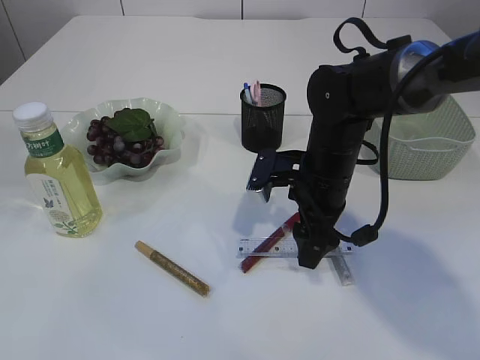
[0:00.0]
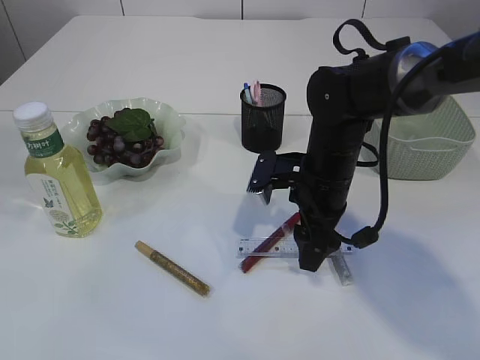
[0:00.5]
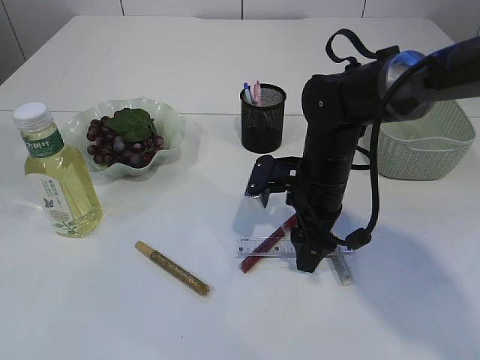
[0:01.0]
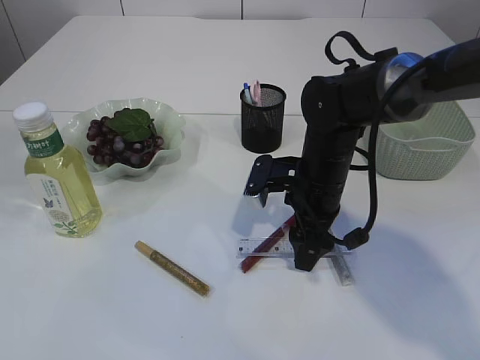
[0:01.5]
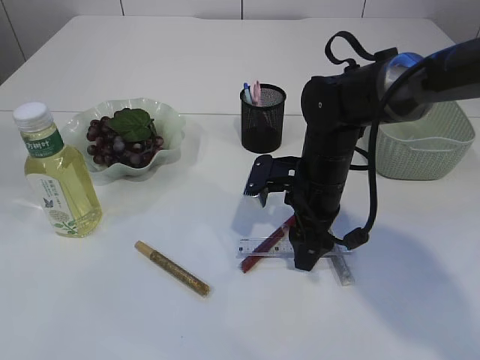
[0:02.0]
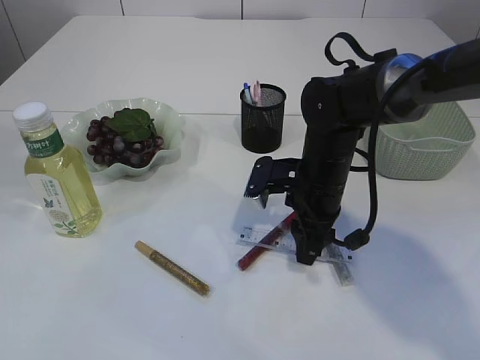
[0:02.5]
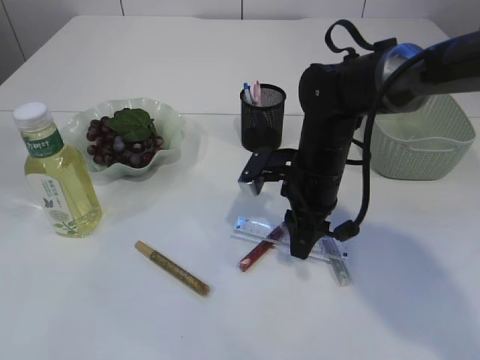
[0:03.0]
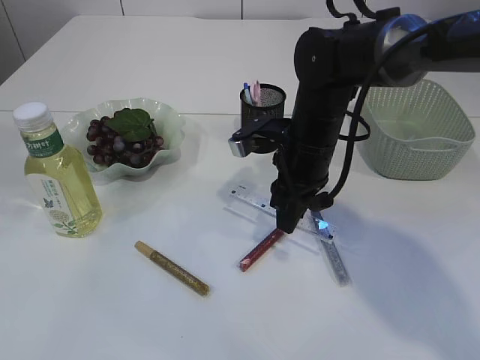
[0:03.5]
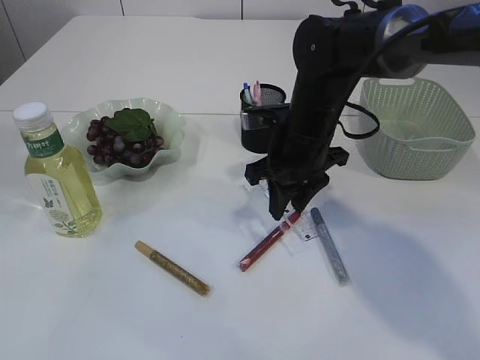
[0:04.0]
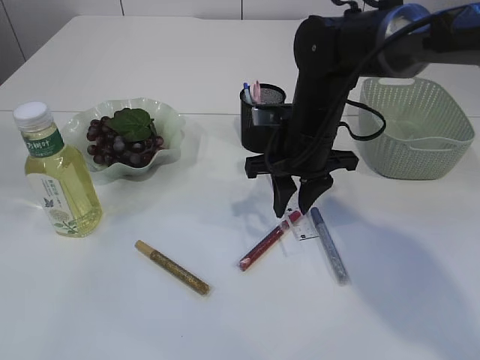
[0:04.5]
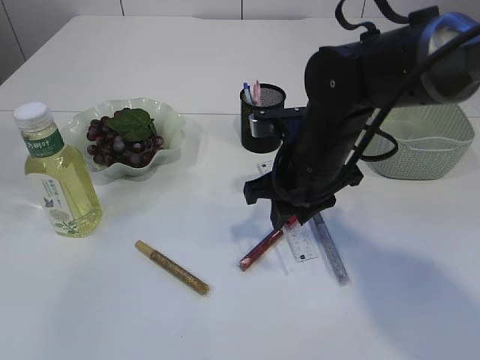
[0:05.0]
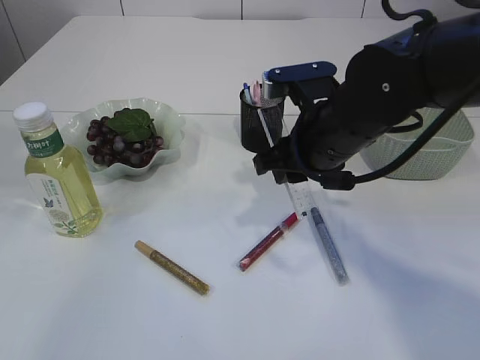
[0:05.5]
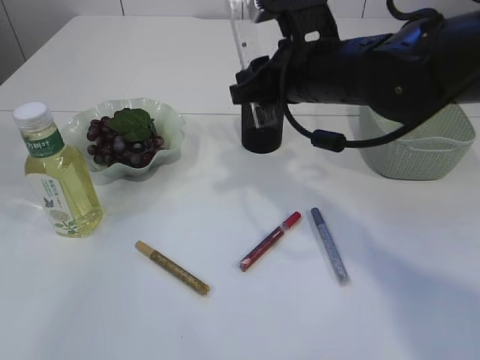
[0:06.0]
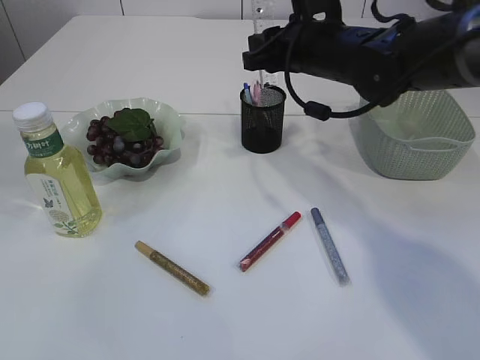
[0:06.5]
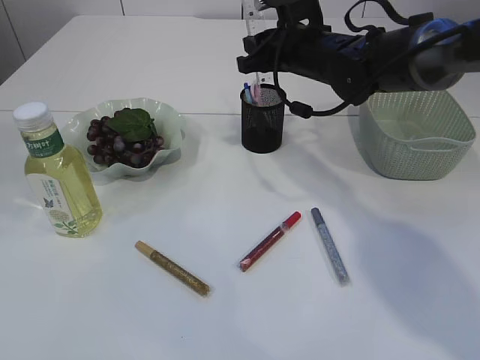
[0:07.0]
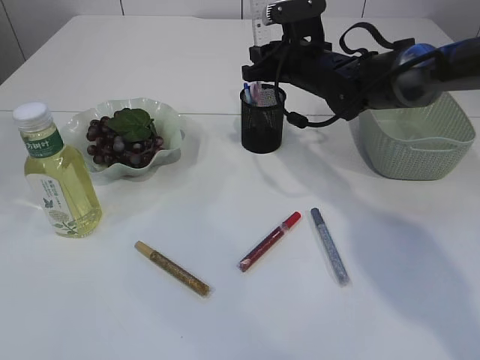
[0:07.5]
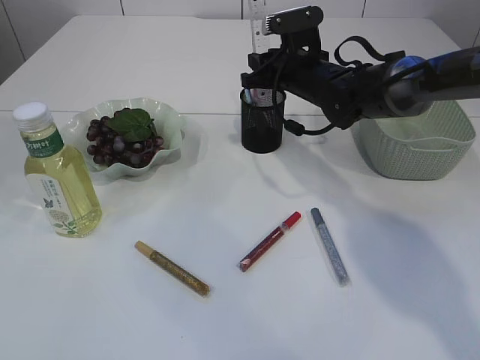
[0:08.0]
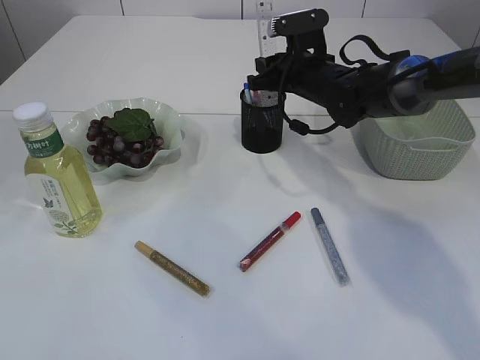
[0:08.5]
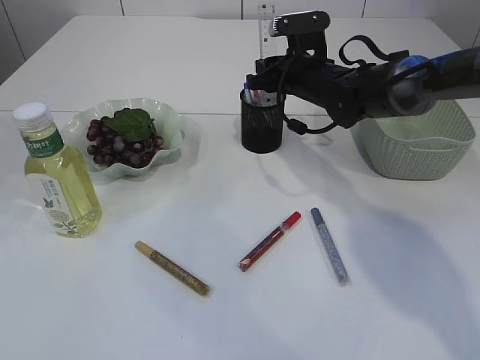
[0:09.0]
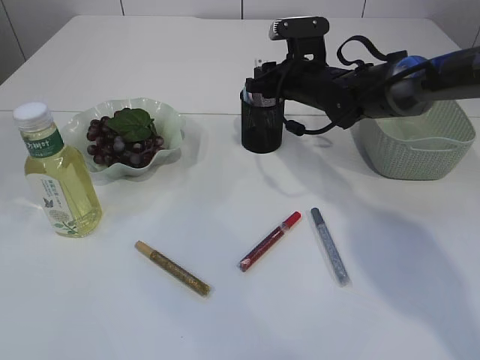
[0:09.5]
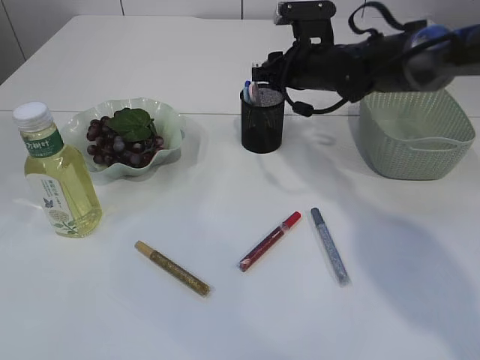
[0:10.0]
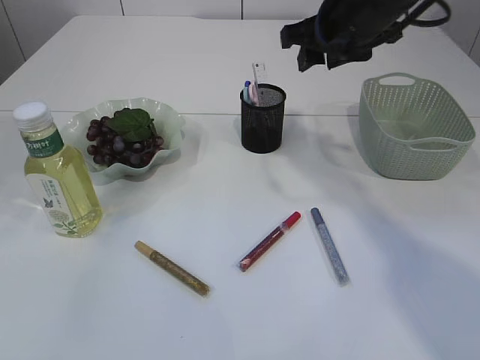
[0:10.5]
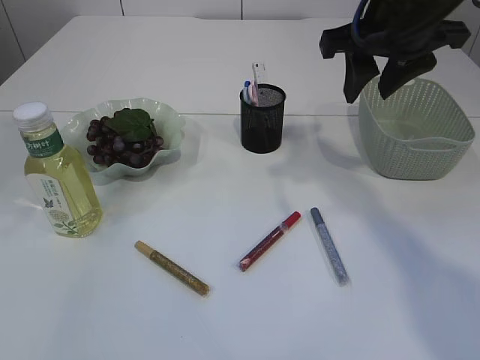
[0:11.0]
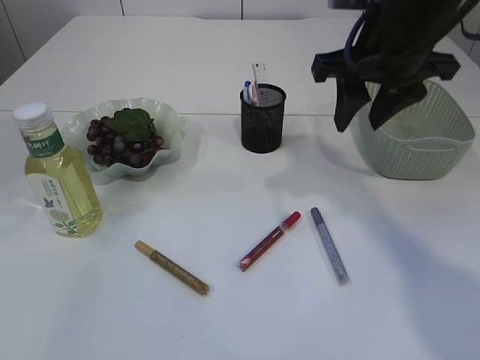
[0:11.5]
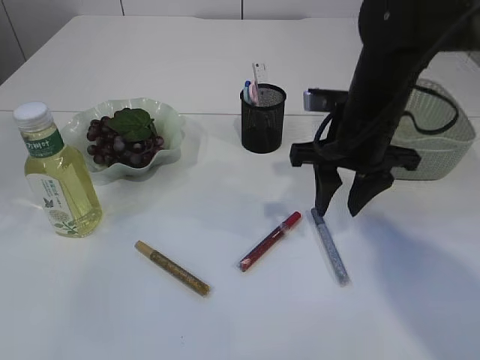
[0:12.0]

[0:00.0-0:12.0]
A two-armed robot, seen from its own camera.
Step, 0:00.0 to 0:03.5: pick up the ruler.
Step, 0:04.0 to 0:10.0: Place the ruler into the pen holder.
0:00.0 to 0:02.0: The grippers make only small movements.
0:02.0 to 0:04.0: The right gripper moves upward, some 5 cm, and closes.
0:04.0 to 0:06.0: The right gripper goes about 10 cm upward.
0:06.0 to 0:08.0: The right gripper heads forward and downward, covering roughly 15 cm.
0:08.0 to 0:10.0: The grippers stay close to where they were, moving slightly.
0:10.0 to 0:12.0: The right gripper goes approximately 15 cm backward.

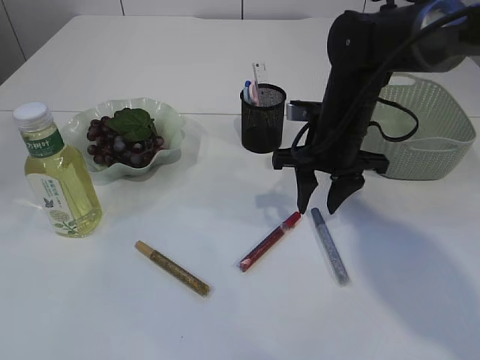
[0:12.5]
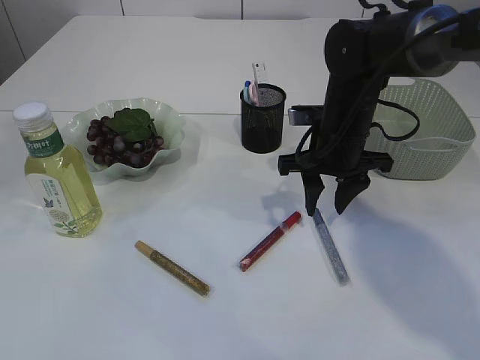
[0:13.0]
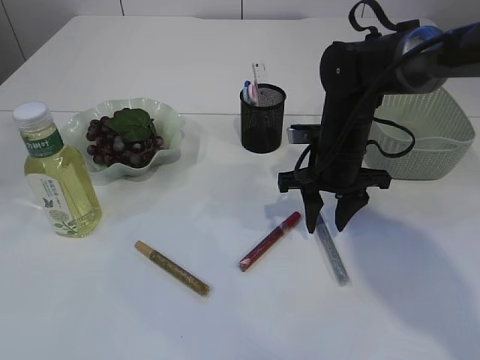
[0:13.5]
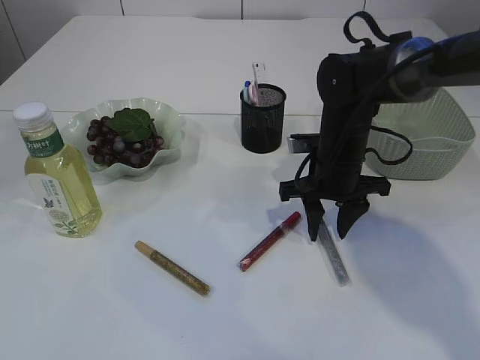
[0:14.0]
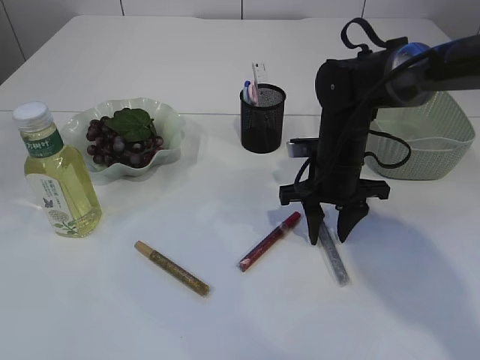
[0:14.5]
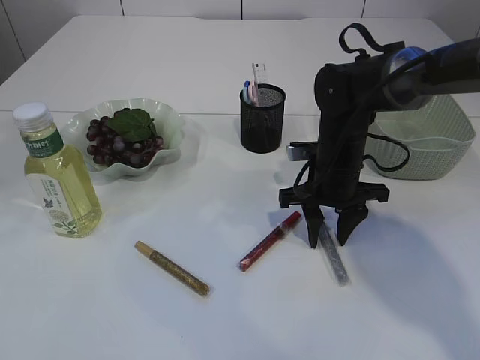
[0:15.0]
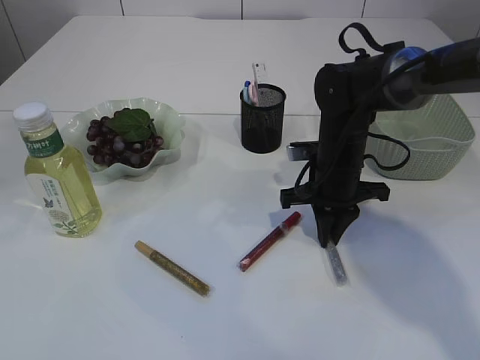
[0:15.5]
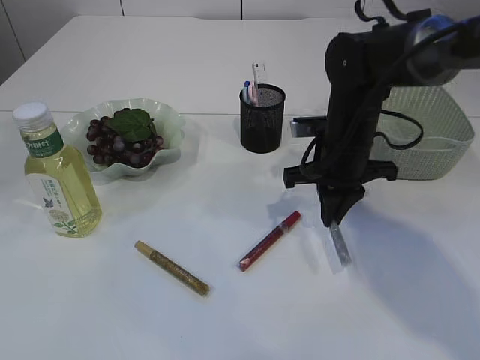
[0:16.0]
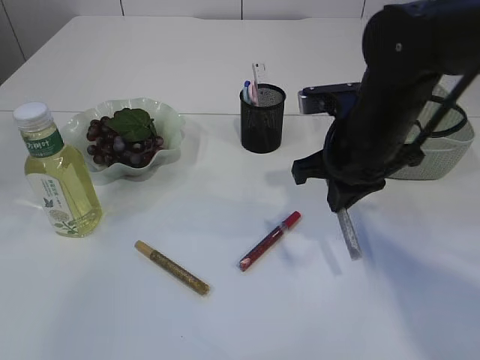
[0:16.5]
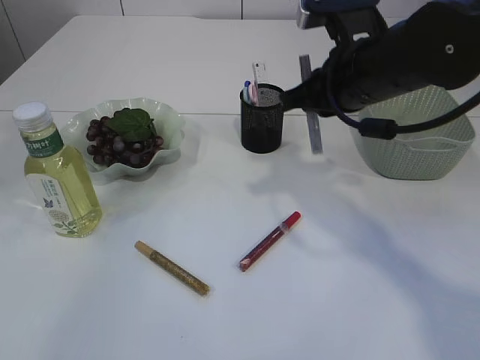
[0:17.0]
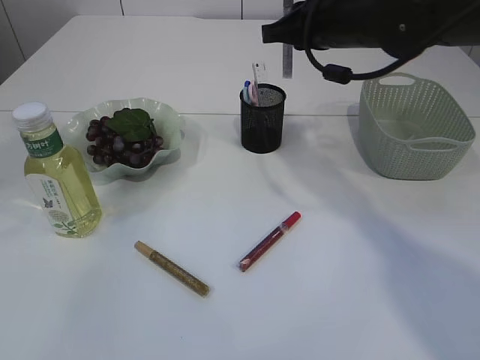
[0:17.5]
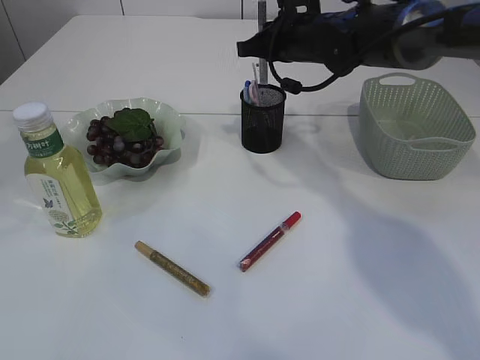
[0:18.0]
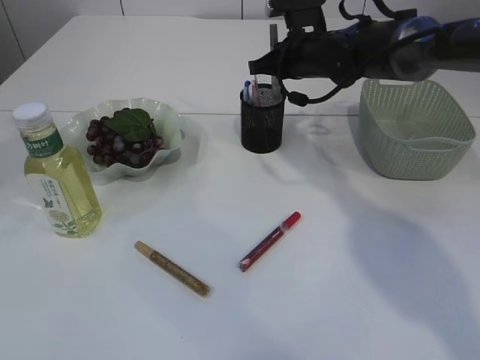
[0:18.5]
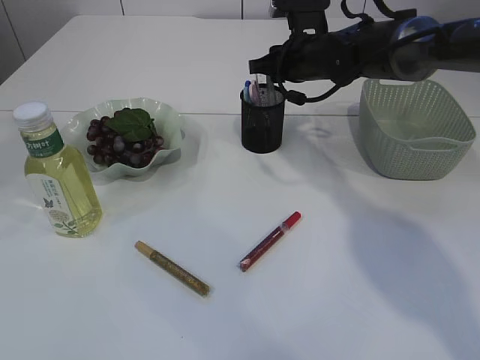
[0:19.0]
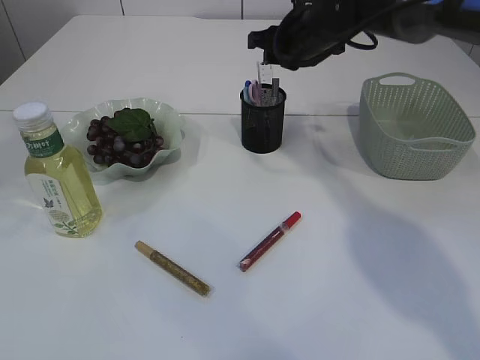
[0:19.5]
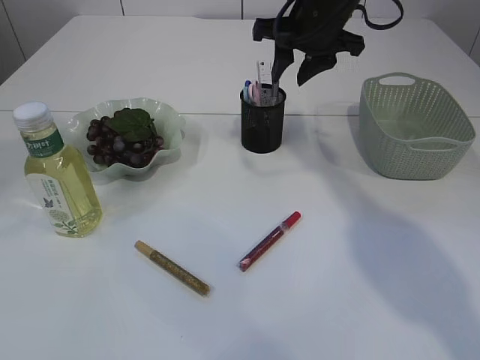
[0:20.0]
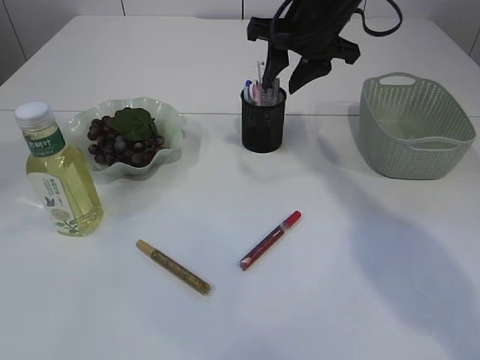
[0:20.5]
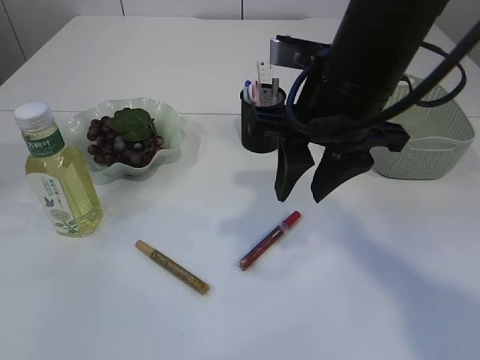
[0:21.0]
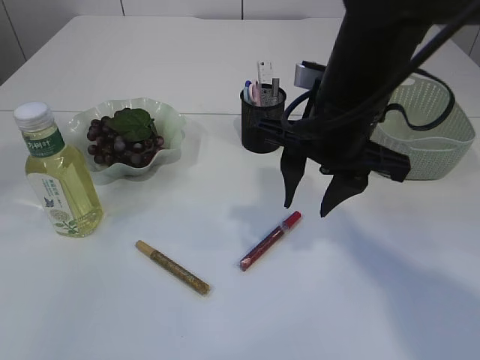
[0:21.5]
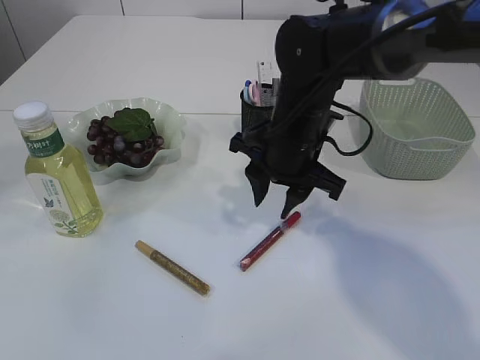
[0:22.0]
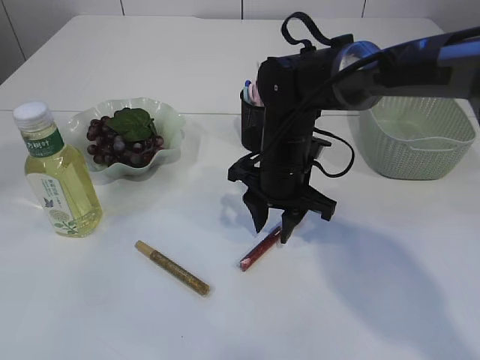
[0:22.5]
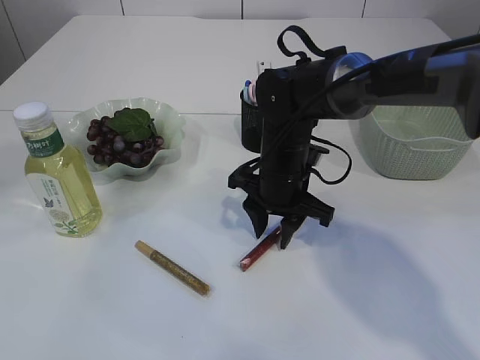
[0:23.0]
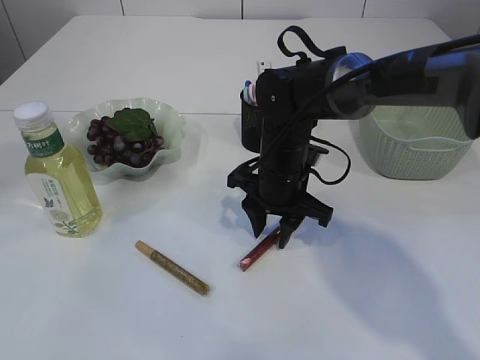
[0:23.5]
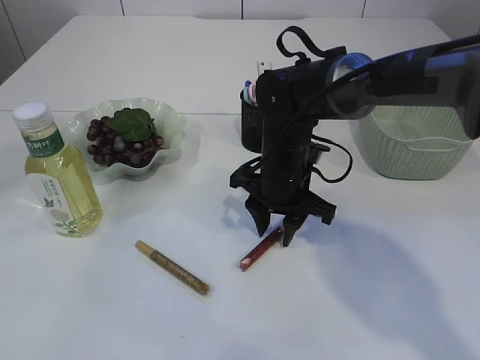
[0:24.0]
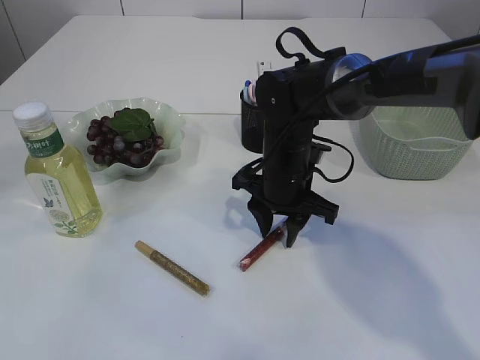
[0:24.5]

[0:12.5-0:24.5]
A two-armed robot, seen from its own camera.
Step, 0:12.5 to 0:16.0: pick up the silver glue.
Step, 0:16.5 to 0:19.0: place the silver glue into the pen holder.
0:12.5 to 0:14.5: The right gripper heads downward, covering approximately 5 cm.
0:14.5 to 0:16.5: The right gripper travels upward and backward by approximately 10 cm, and closes.
0:16.5 to 0:18.5: The right gripper moves forward, approximately 20 cm.
0:18.5 to 0:20.5: The right gripper heads upward and backward, covering roughly 10 cm, and opens up.
0:20.5 to 0:22.5: The right gripper heads downward and backward, covering approximately 15 cm.
0:22.5 to 0:24.5: The grippers make only small movements.

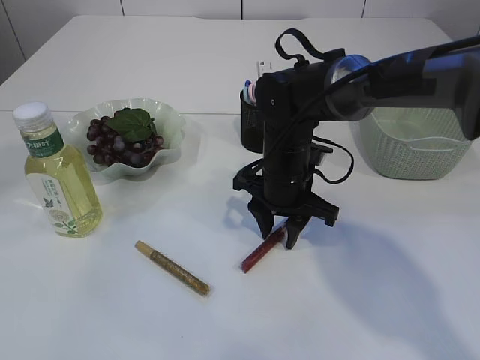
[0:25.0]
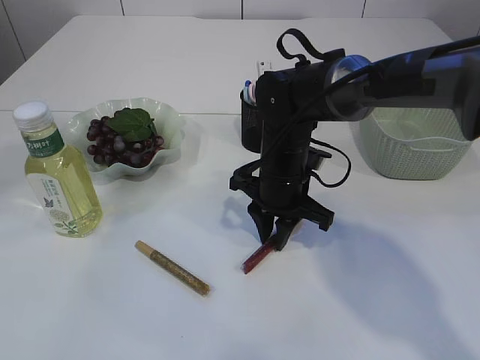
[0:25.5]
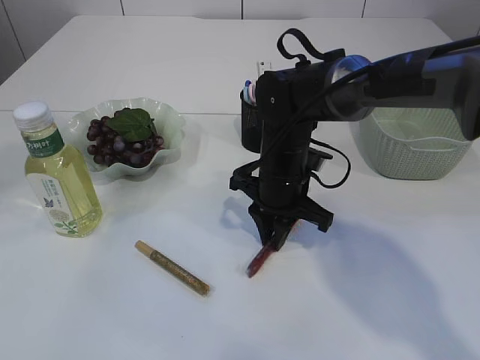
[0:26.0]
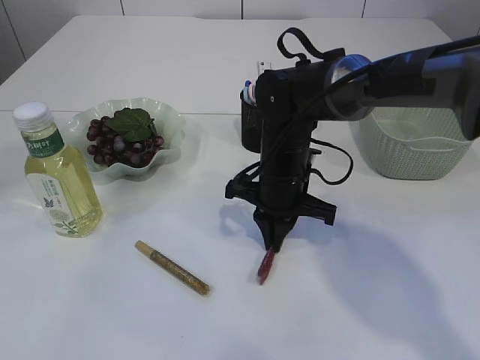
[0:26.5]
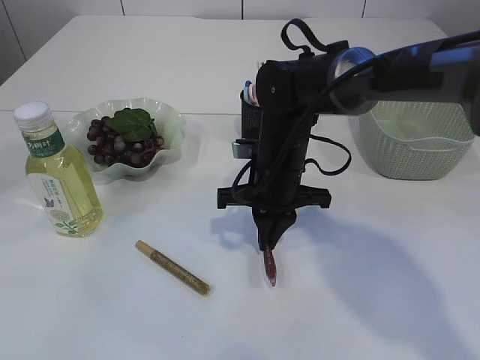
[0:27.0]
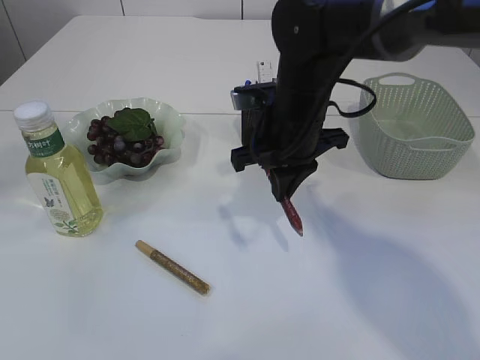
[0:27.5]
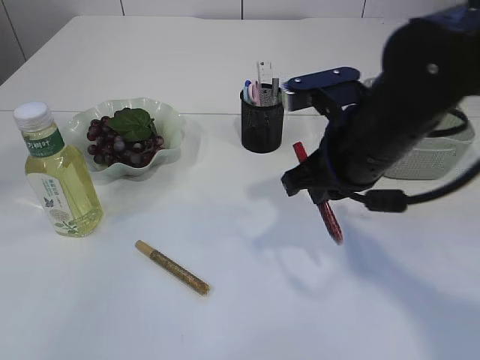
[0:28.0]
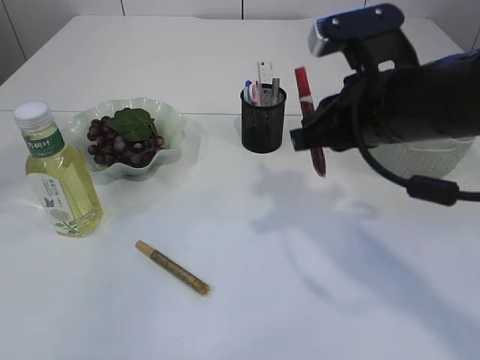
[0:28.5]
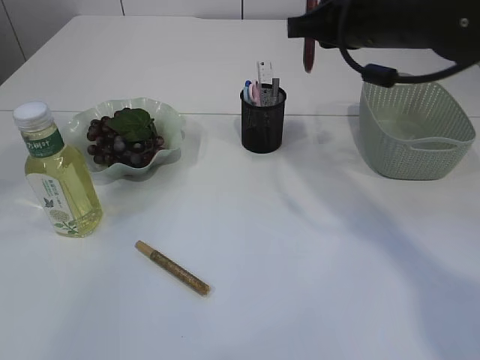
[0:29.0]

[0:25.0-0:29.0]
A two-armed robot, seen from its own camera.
Step, 0:25.0 to 0:27.0: pick up the red glue.
0:25.0 to 0:27.0: The right gripper closes up.
0:27.0 to 0:29.0: The right gripper moves upward and to the right, some 20 cm.
